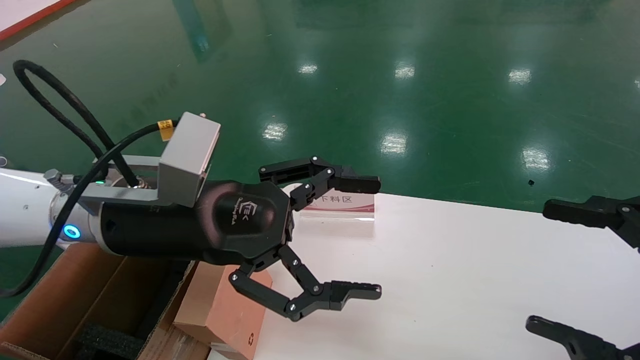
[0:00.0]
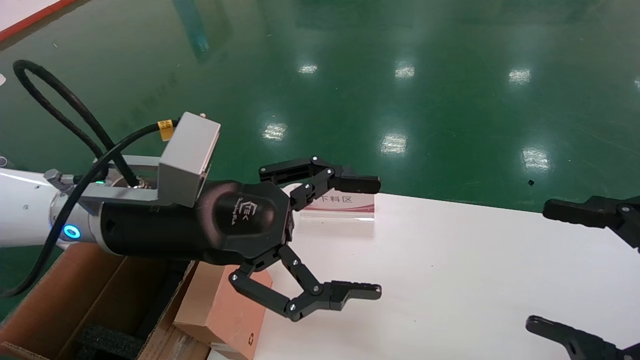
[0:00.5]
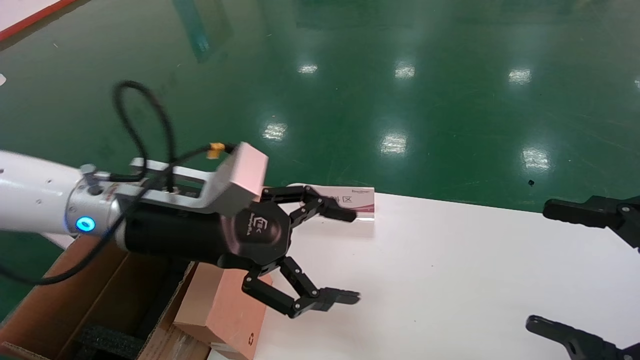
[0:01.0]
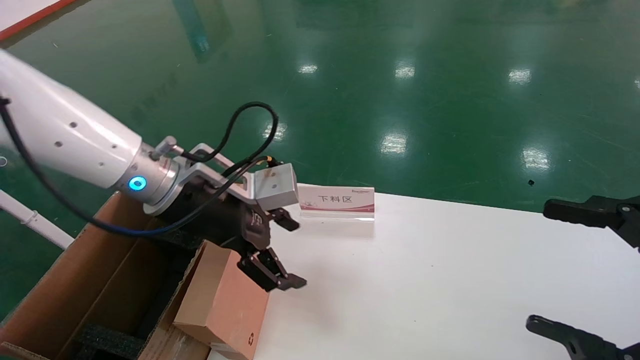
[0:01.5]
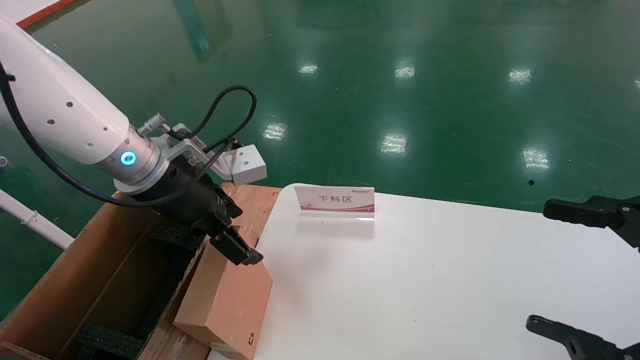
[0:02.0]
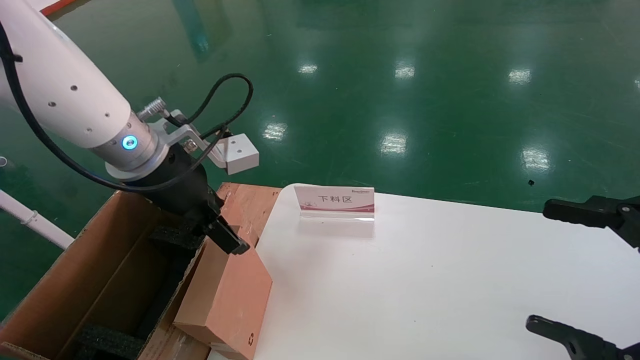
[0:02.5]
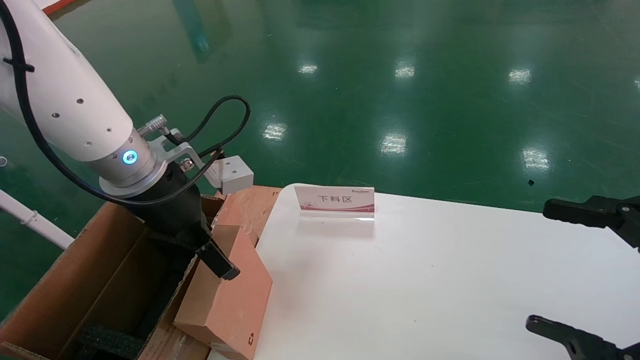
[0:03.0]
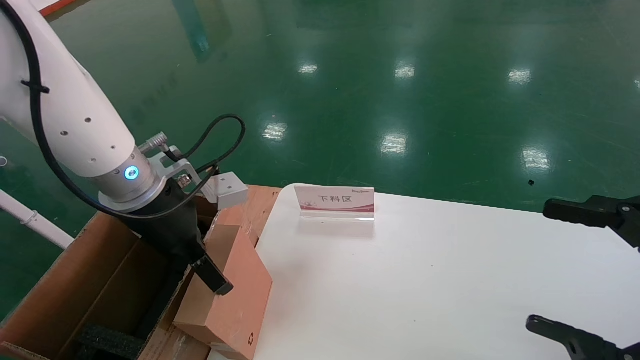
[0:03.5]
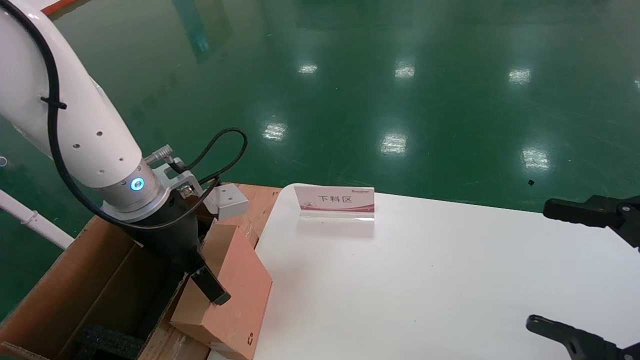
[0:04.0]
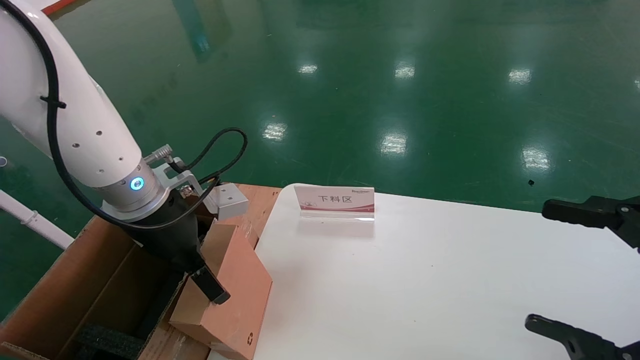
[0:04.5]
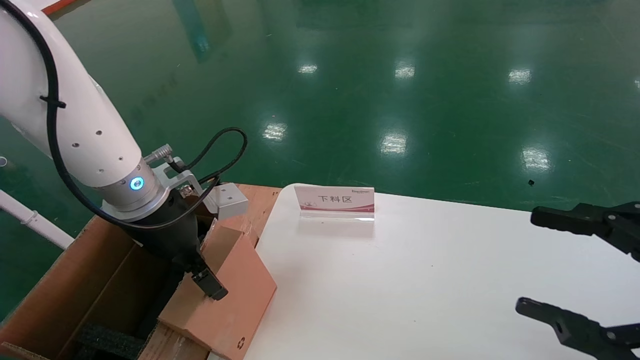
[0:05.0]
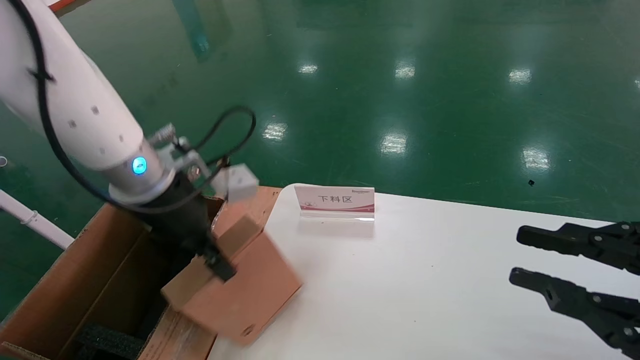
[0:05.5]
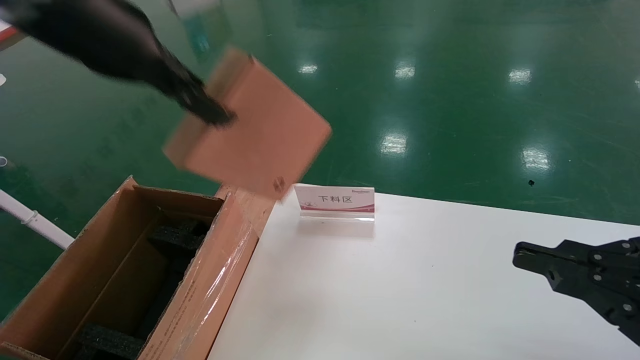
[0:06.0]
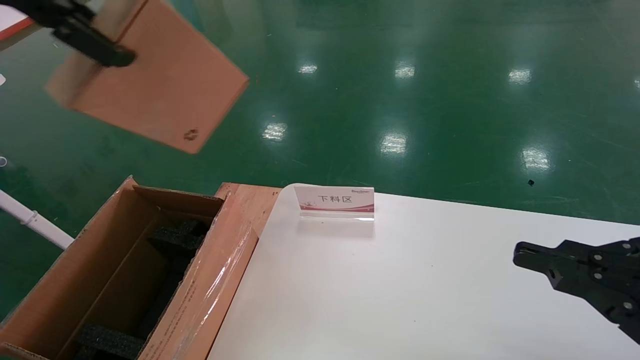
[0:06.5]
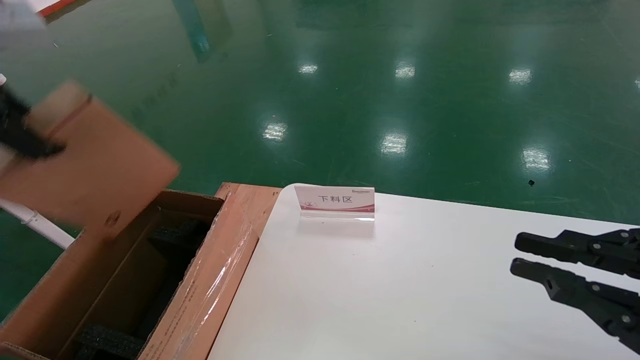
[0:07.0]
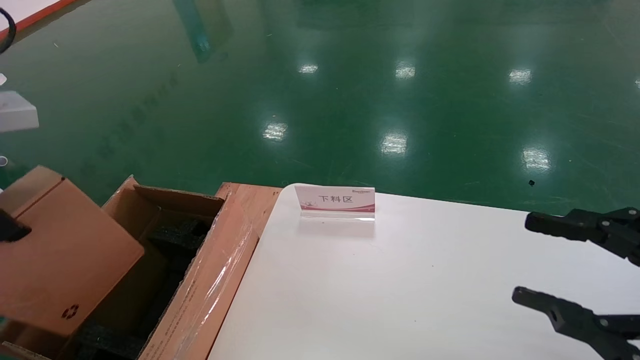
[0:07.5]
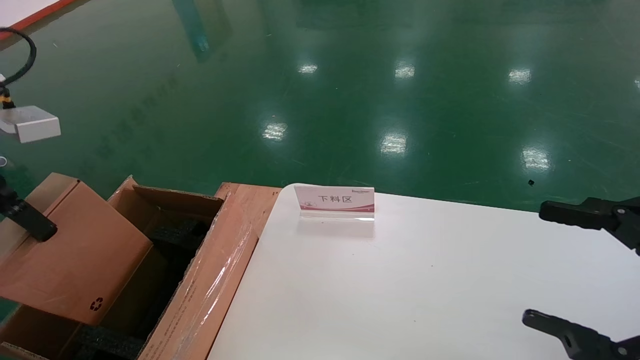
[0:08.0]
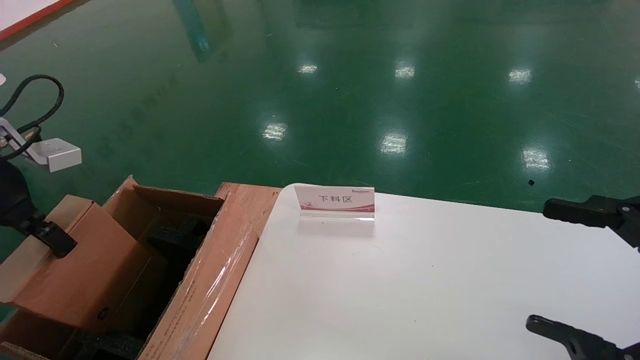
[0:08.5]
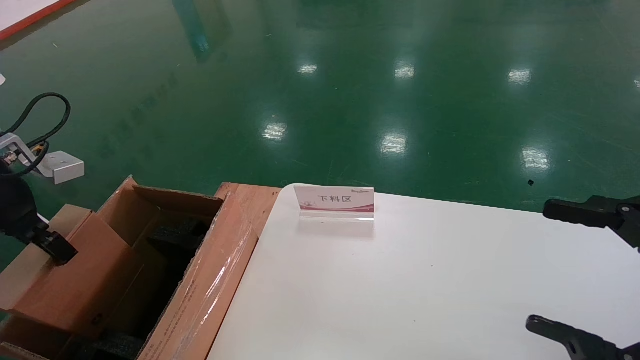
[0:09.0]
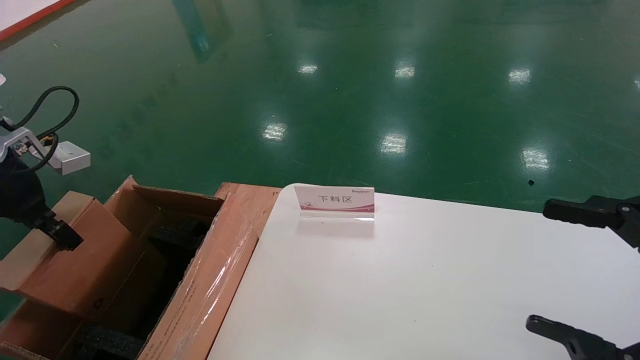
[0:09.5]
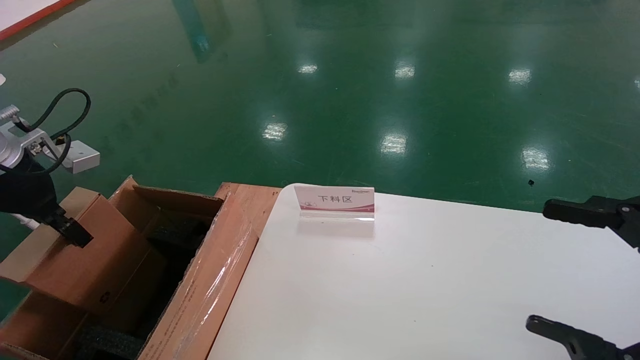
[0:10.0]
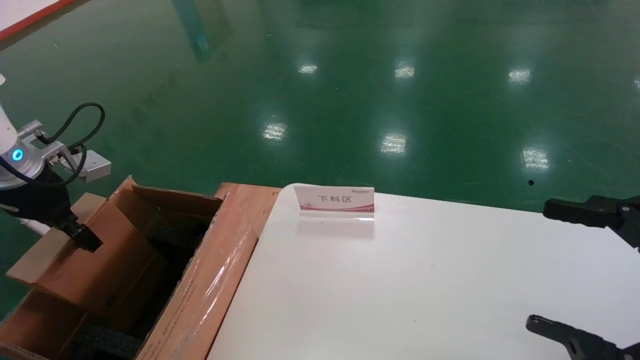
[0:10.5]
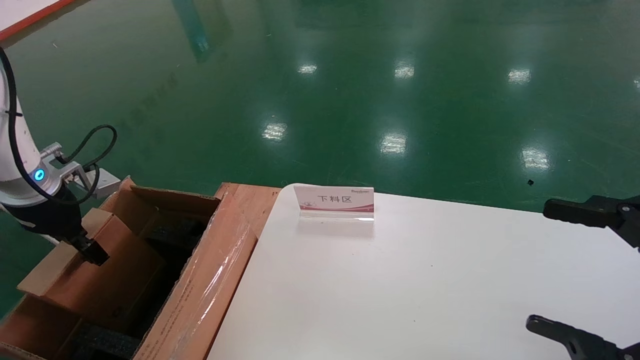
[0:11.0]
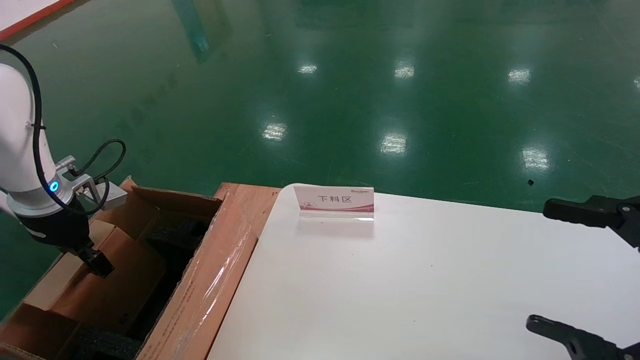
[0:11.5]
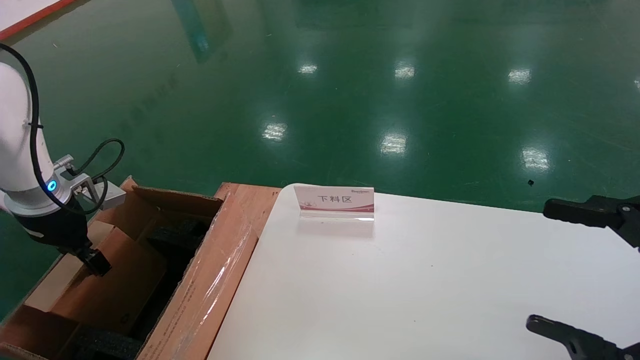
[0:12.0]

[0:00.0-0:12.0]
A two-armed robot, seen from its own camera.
Task of the whole recording: pick up the small cardboard box and load it into the large cardboard box.
Step, 0:01.0 to 0:05.0: Pick up the mouse and power cord box.
0:00.0 to 0:02.0: The left gripper shifts about 5 cm forward.
0:04.0 to 0:06.0: The left gripper travels upward by about 20 cm, and closes up, while the right gripper closes.
0:06.0 to 0:08.0: The right gripper opens up, while the left gripper is displaced to the left and downward by approximately 20 cm.
0:08.0 to 0:10.0: The left gripper shifts about 10 cm downward and forward.
0:10.0 to 0:12.0: The left gripper goes roughly 10 cm downward.

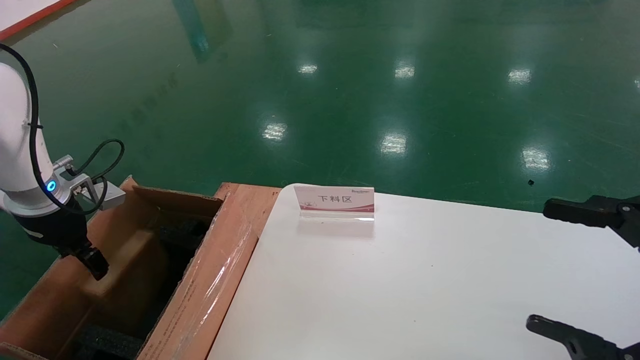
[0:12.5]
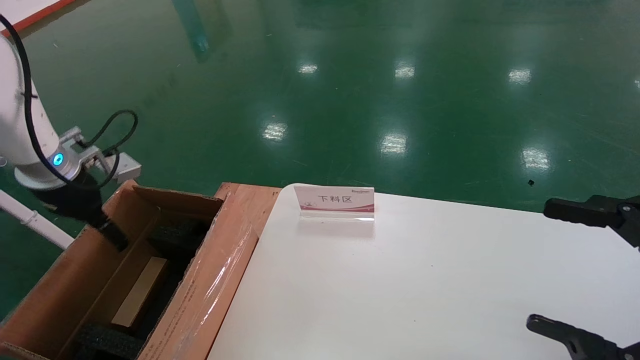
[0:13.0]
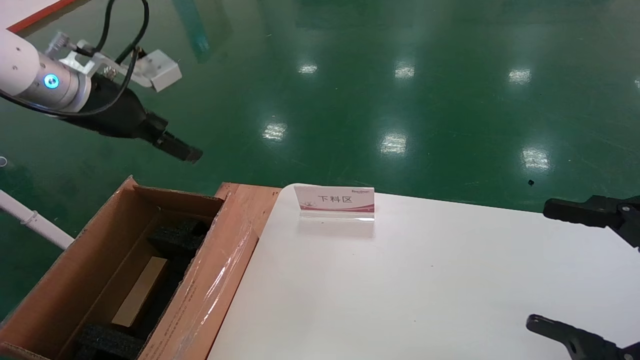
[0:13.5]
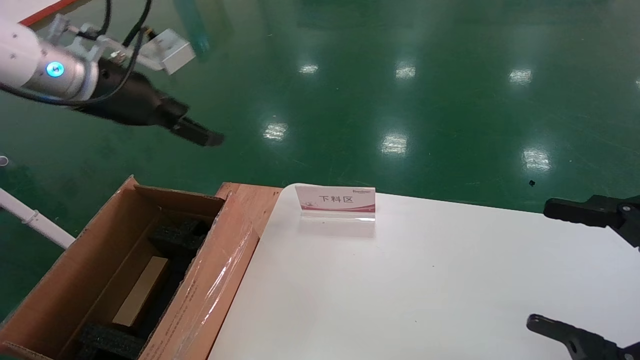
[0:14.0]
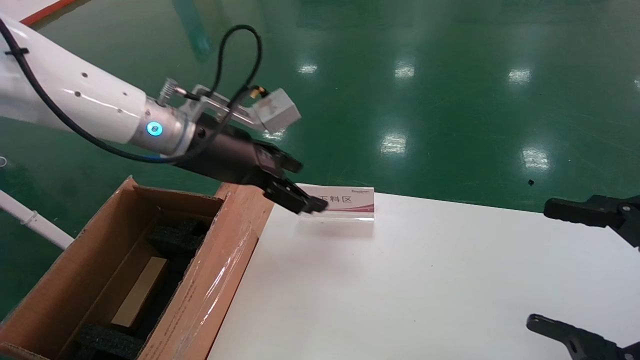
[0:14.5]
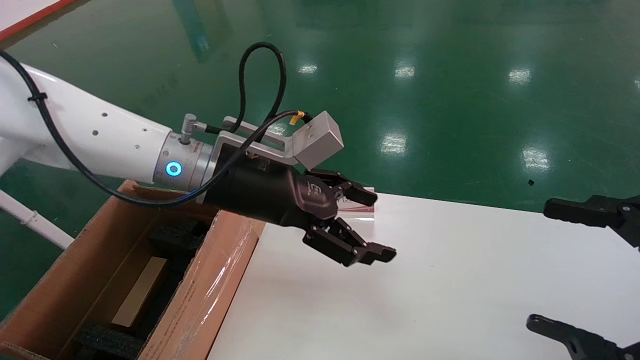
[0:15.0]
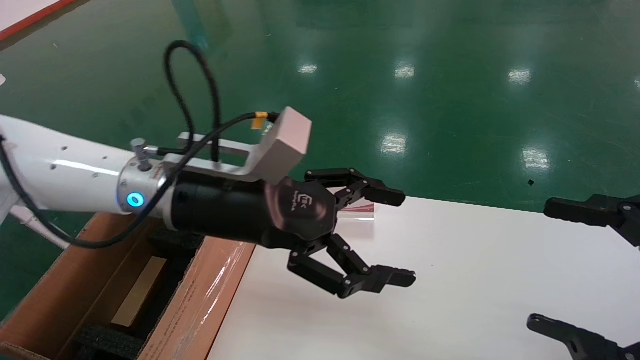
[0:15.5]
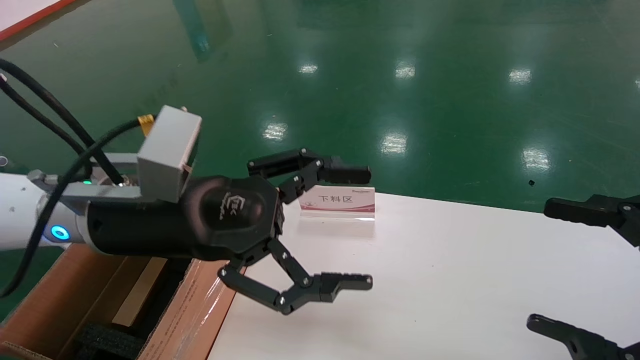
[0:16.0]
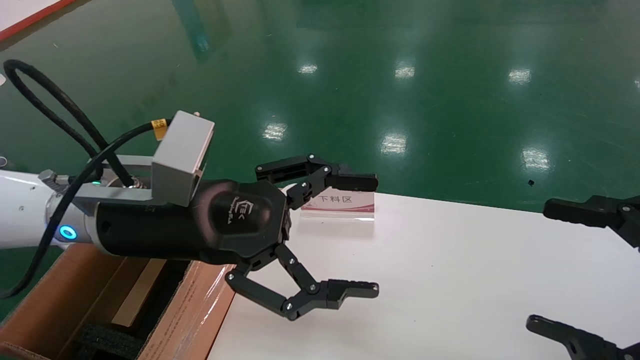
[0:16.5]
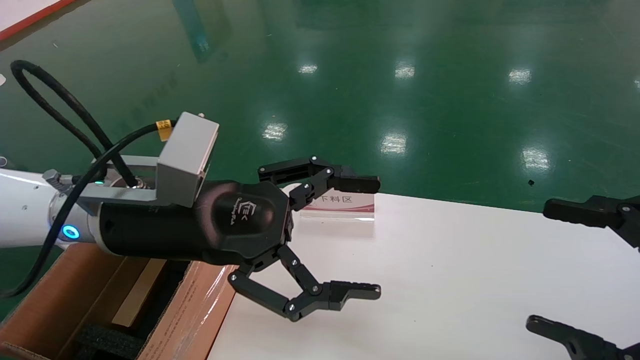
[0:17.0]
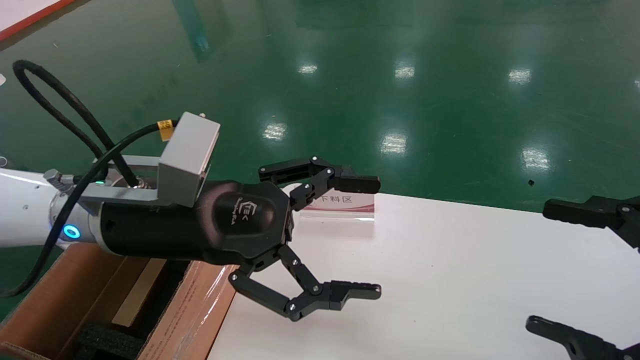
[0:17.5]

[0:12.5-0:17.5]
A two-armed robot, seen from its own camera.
Task of the whole recording: pick up the small cardboard box and load it into the large cardboard box.
0:12.5 to 0:15.0: The left gripper shifts about 30 cm to the right, and opens.
0:15.0 to 0:17.5: The left gripper heads backward, covering about 10 cm.
